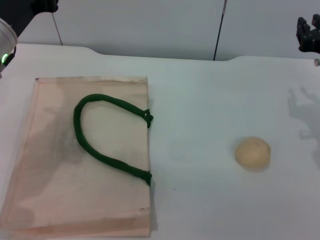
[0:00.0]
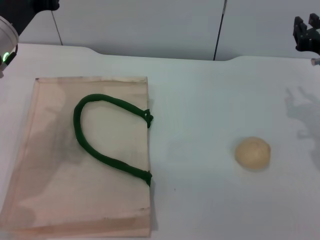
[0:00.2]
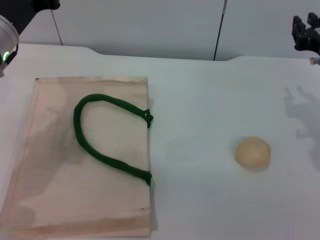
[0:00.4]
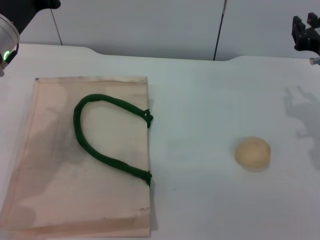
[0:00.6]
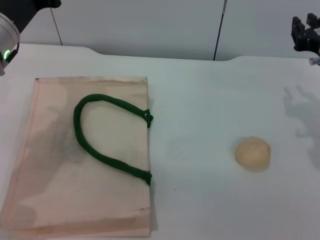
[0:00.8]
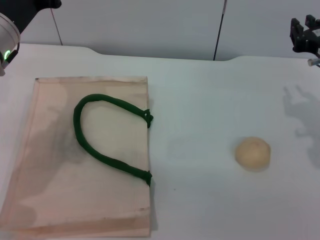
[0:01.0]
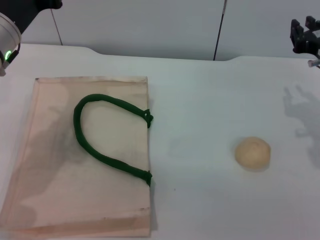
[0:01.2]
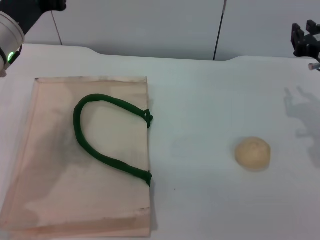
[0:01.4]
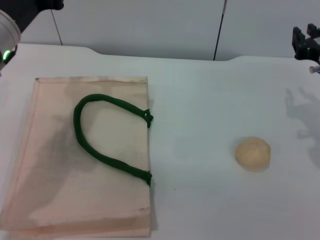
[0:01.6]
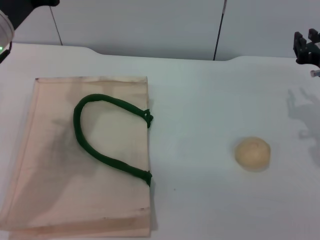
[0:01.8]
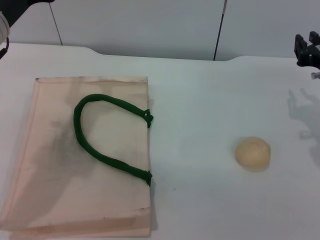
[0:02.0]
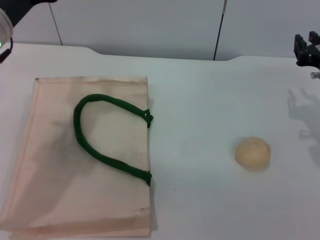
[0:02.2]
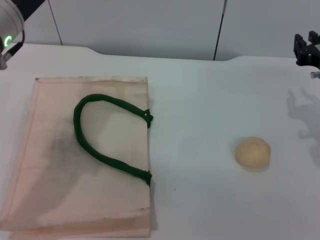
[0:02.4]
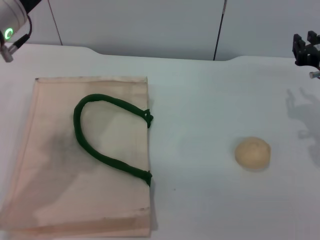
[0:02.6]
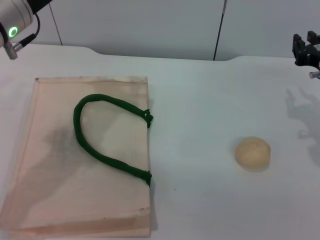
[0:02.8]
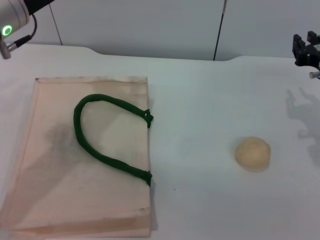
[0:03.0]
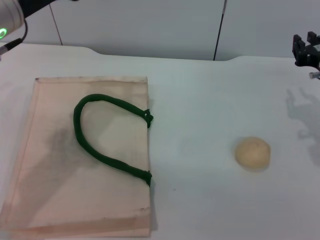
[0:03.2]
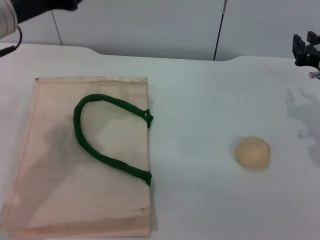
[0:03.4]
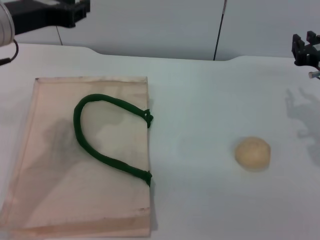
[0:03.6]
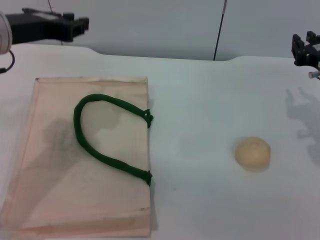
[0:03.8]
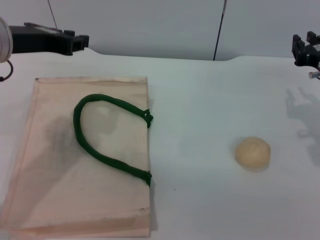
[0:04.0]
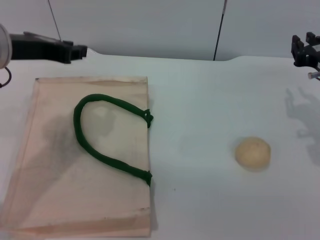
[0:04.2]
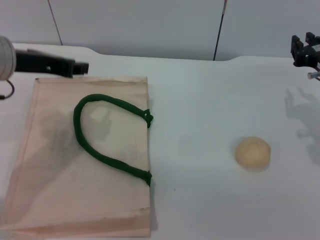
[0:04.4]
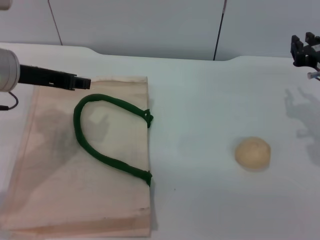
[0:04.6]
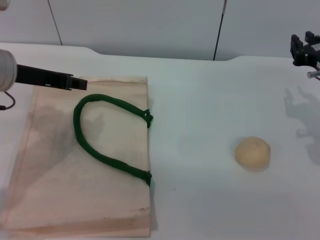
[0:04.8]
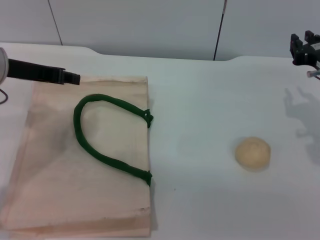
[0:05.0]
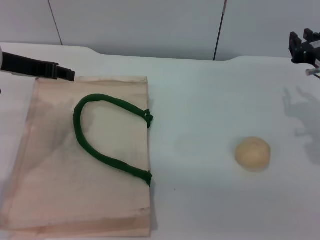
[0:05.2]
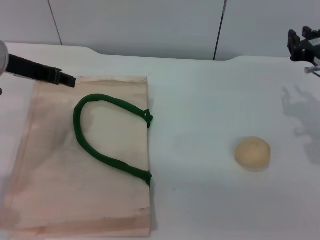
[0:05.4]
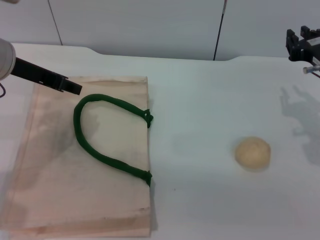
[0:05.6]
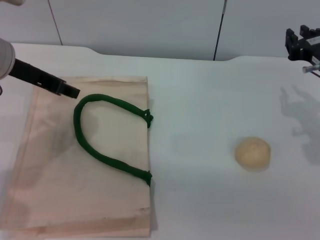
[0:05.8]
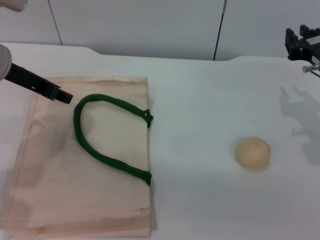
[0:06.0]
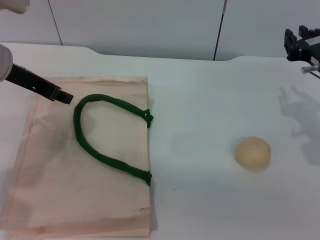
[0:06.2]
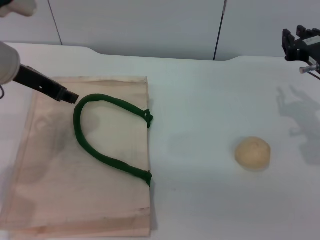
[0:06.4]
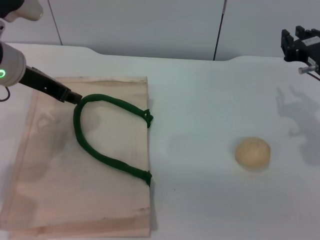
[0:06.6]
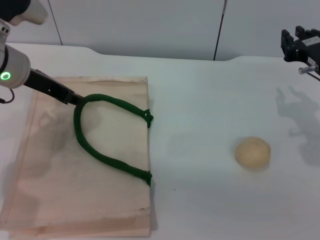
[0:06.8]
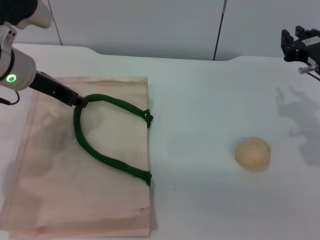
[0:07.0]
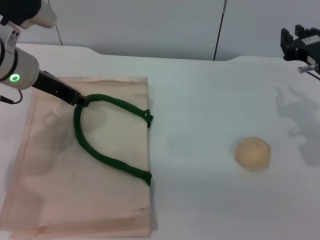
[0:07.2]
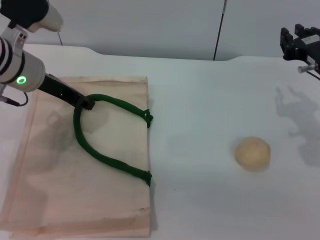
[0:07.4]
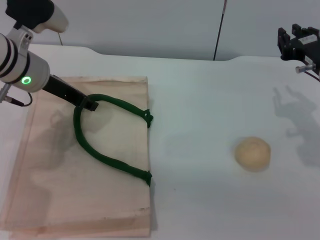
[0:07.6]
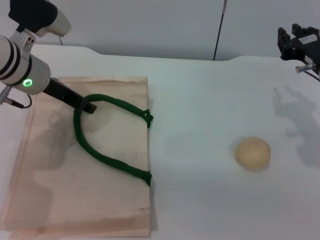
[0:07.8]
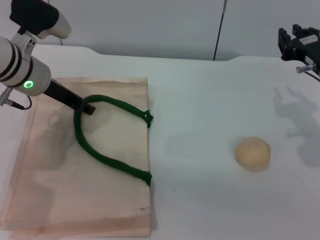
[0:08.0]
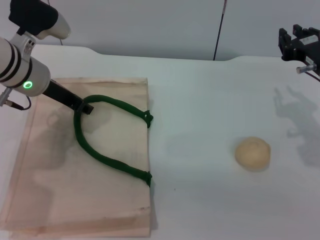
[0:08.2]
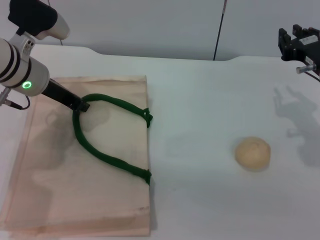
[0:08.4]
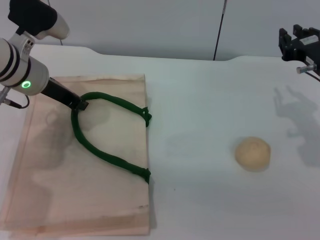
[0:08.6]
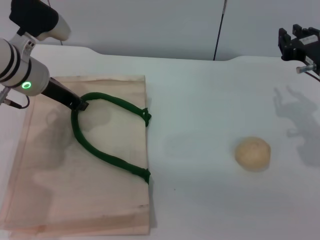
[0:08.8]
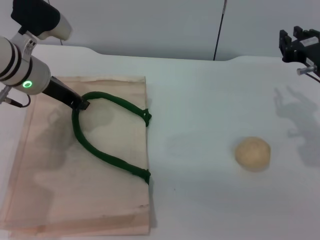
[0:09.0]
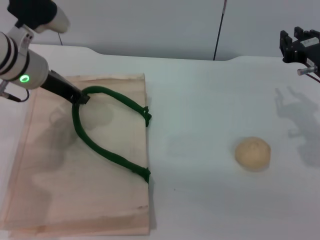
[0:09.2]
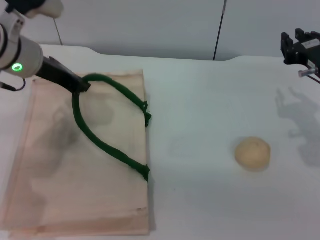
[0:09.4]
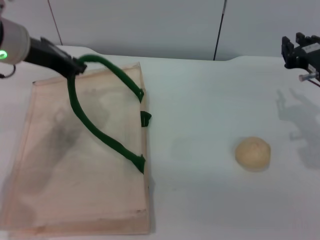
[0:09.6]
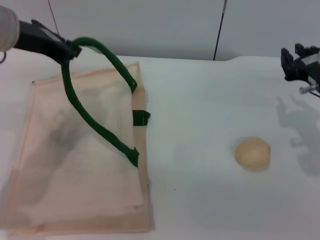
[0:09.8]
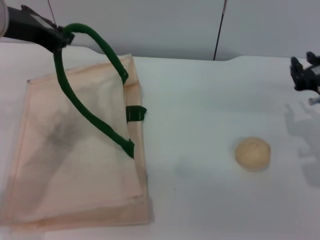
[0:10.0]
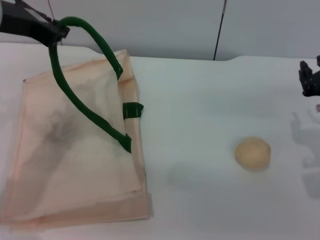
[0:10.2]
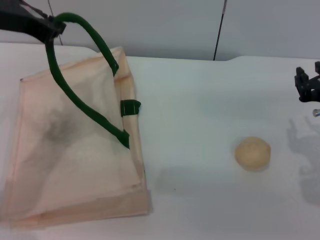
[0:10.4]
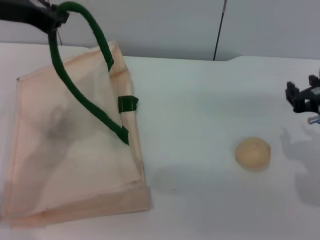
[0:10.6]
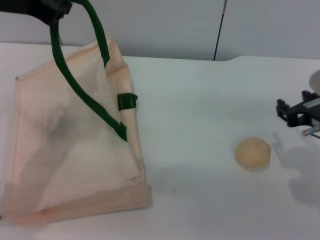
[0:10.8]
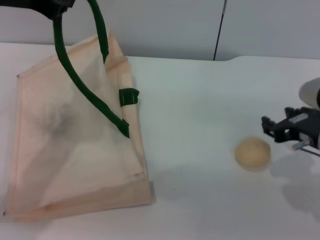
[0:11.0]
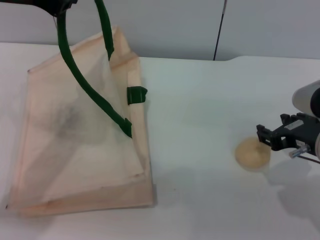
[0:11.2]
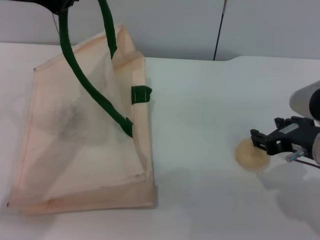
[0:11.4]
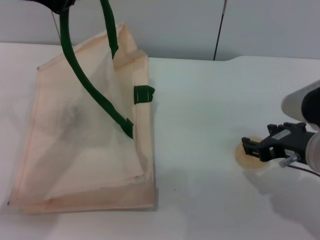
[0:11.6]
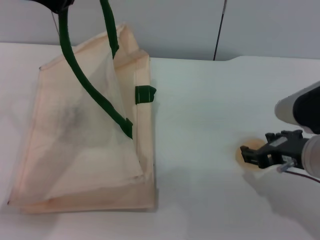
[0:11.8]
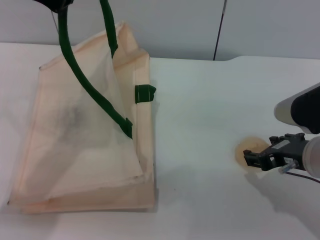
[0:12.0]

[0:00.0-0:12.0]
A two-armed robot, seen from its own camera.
Task of the whole recording: pick up the egg yolk pastry from the table and place it in the white handbag.
Step, 0:00.0 to 0:10.2: Lift the woven bag with the left gripper to open it.
0:00.0 to 0:03.0: There are only small adjustments of the grippers.
0:06.0 to 0:07.6: The left gripper changes place by some 5 cm.
0:07.6 to 0:09.0: The left gripper closes up.
0:09.0 to 0:10.4: The left gripper travels upward by some 10 cm. Meanwhile the right gripper heads backward, covering roughly 10 cm.
0:10.4 to 0:12.0: The right gripper opens up.

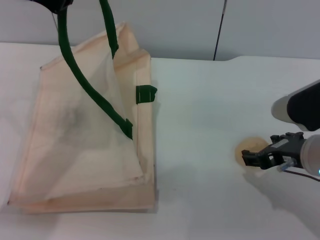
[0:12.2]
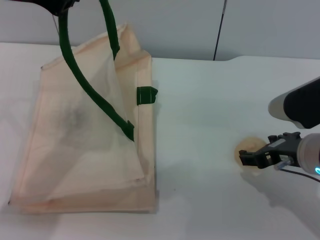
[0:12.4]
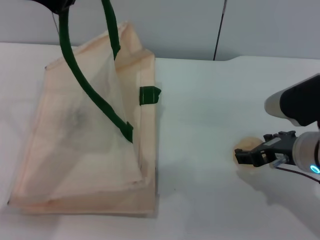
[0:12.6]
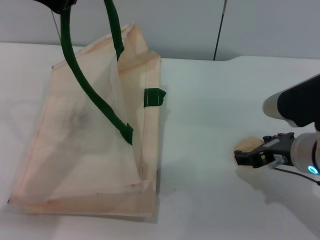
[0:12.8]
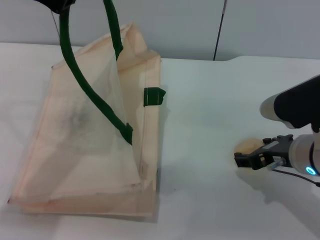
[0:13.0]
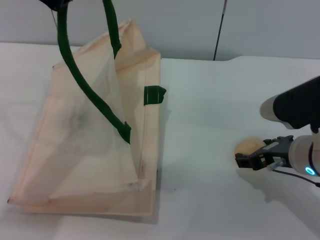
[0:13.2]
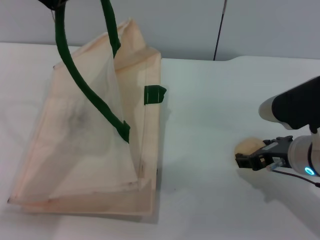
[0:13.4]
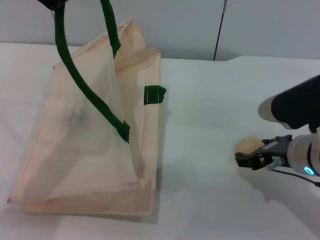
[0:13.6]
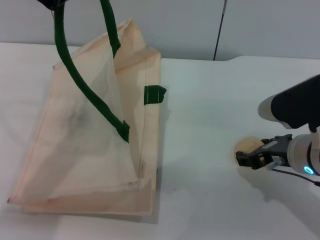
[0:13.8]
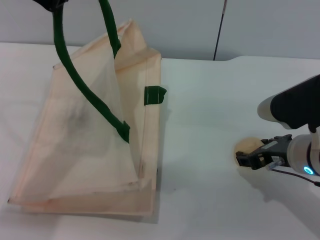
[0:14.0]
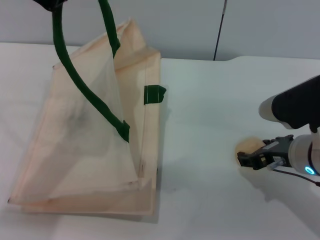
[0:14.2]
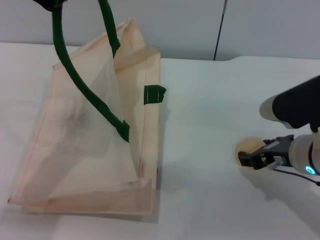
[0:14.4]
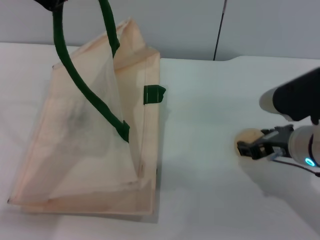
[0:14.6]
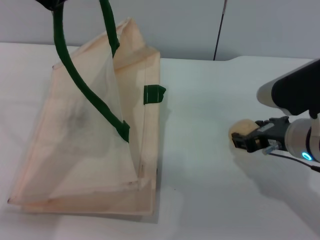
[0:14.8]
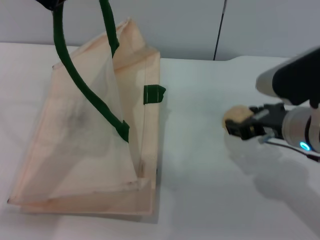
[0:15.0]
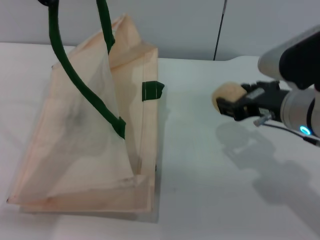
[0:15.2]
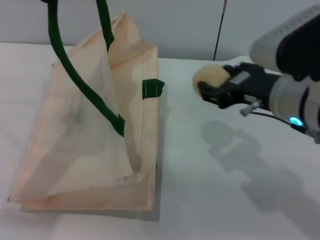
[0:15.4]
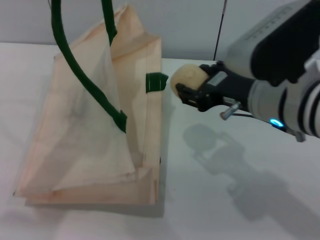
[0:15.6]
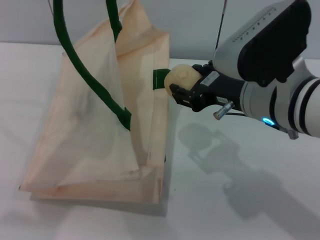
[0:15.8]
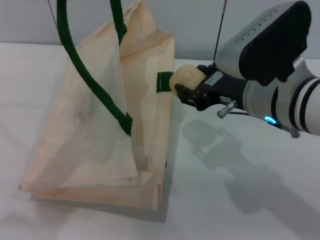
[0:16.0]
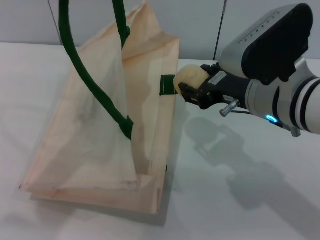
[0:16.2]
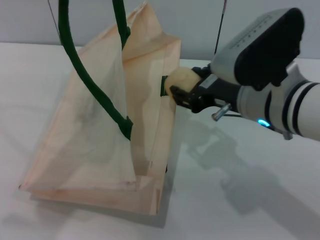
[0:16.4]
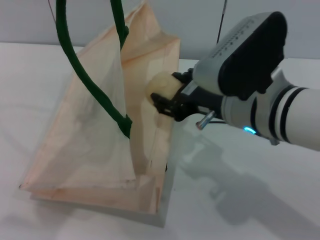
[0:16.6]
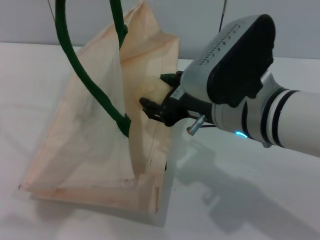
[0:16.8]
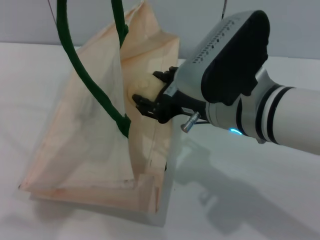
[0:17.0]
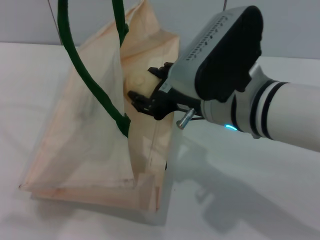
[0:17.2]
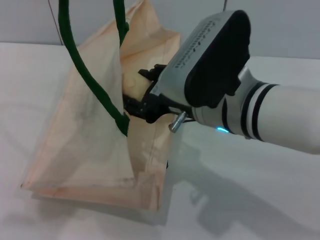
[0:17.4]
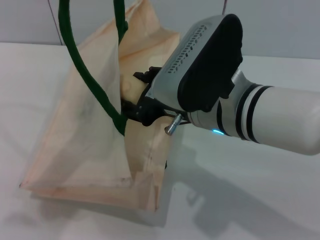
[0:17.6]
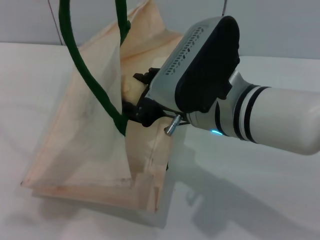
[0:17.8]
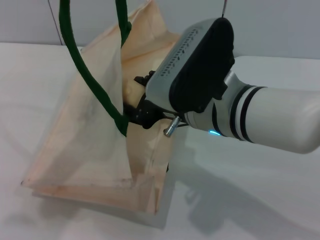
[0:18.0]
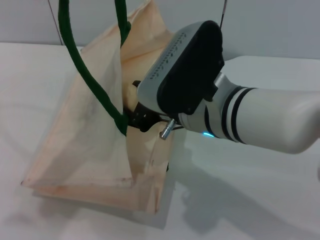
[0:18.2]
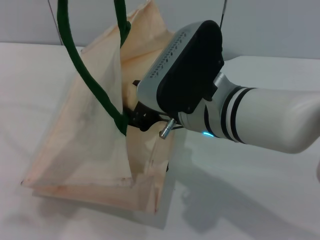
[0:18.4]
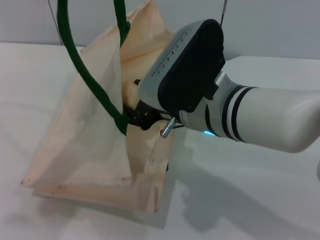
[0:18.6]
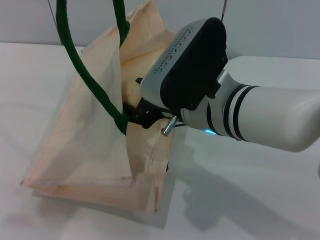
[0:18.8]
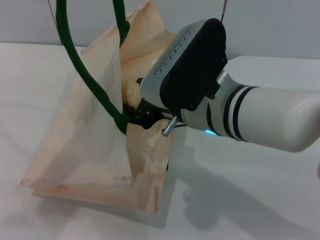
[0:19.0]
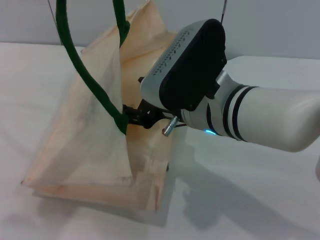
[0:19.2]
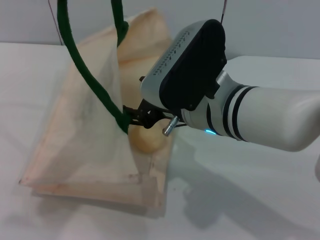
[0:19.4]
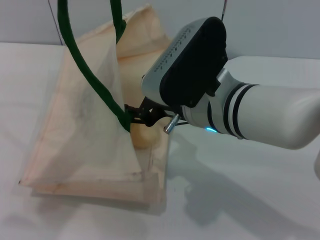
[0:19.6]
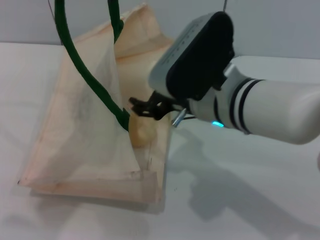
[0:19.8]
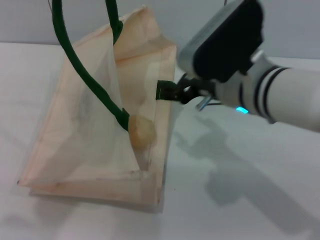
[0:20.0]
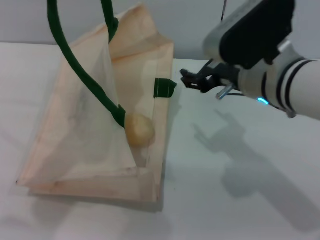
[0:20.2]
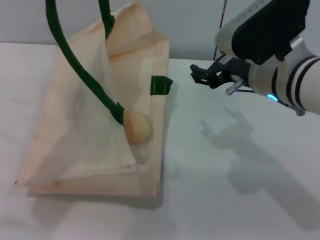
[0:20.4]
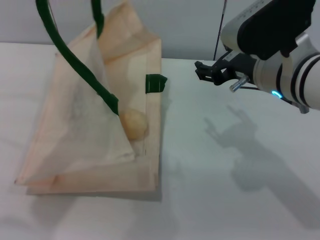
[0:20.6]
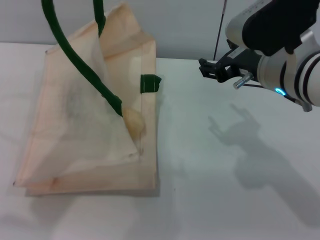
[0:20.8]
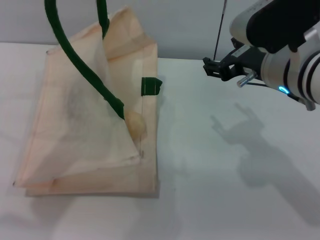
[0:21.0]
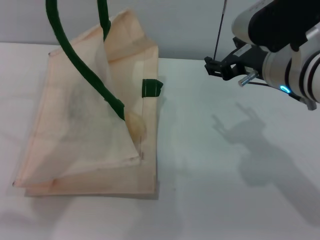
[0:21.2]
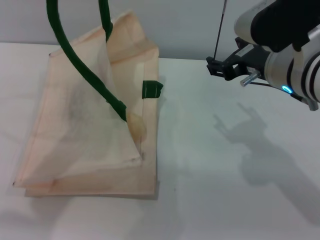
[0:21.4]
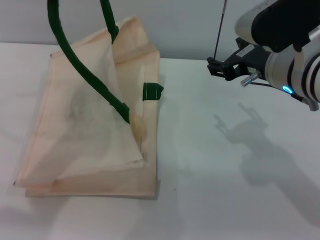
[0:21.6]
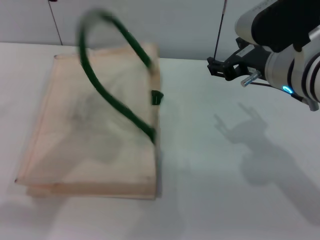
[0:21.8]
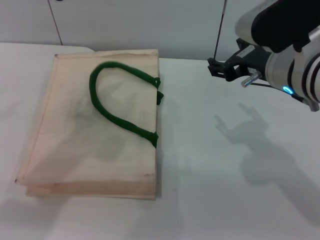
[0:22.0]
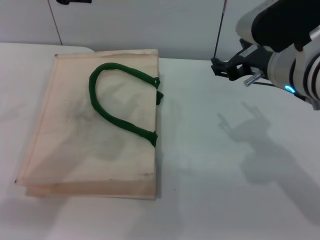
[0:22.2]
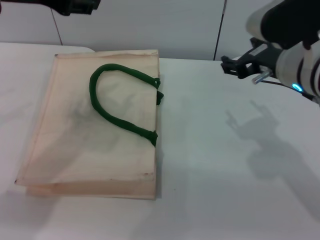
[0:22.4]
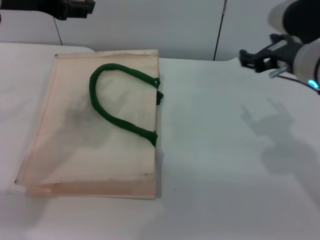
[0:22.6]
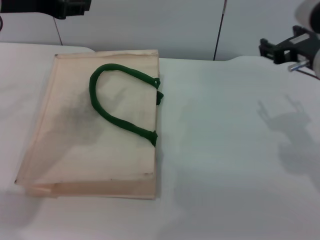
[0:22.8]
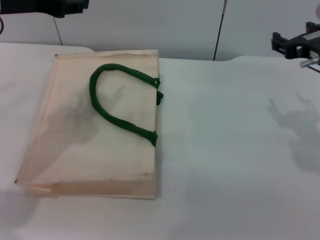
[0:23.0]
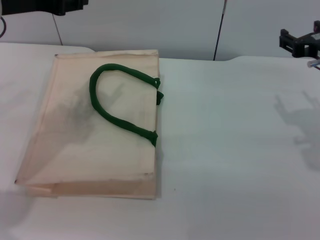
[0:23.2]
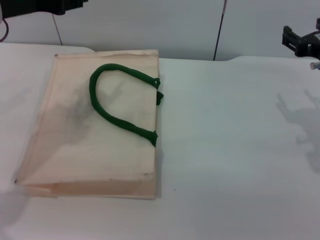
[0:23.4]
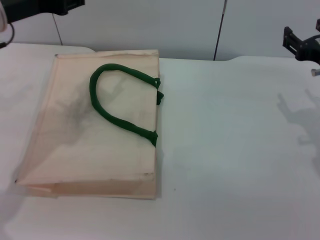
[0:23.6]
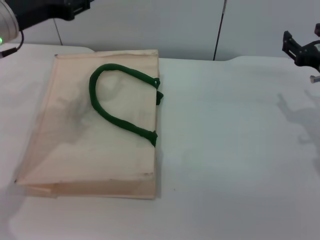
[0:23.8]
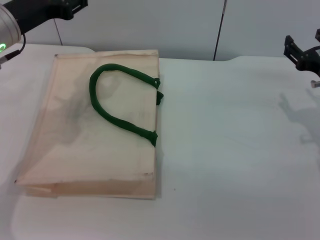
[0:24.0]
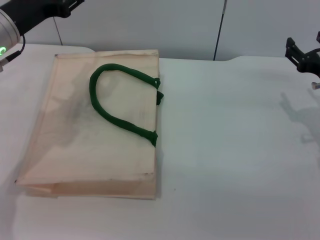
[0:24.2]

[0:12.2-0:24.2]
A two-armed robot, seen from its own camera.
Task of the whole recording: pick up the egg yolk pastry from the table and place it in the white handbag.
Step, 0:12.2 to 0:14.8: Pick up the egg yolk pastry with the right gripper.
Step, 0:15.0 to 0:19.8: Place the egg yolk pastry into the woven bag with the right gripper.
Step, 0:20.0 to 0:22.2: Lower the woven bag with the left gripper to close it.
0:12.2 to 0:13.8: There are only small adjustments of the grippers.
0:13.8 to 0:15.2: The right gripper goes roughly 5 cm upward.
0:15.2 to 0:16.6: The right gripper travels to the left by roughly 5 cm.
0:18.2 to 0:19.8: There are only small adjustments of the grippers.
0:19.8 to 0:21.2: The left gripper opens. Meanwhile the right gripper goes about 10 cm to the right.
0:21.2 to 0:22.6: The left gripper travels downward by roughly 5 cm.
0:22.6 to 0:24.2: The left gripper shifts approximately 10 cm downward, while the right gripper moves downward and to the right, roughly 15 cm.
